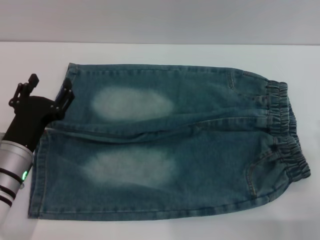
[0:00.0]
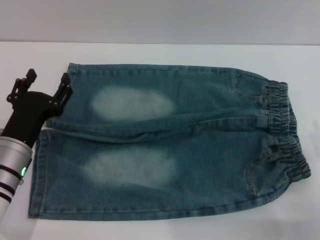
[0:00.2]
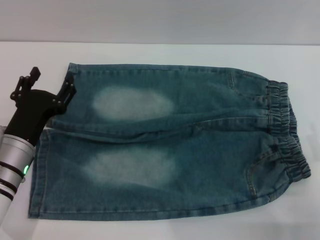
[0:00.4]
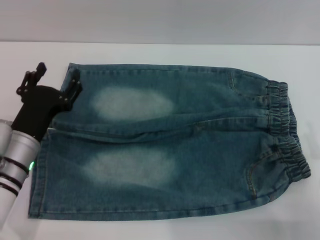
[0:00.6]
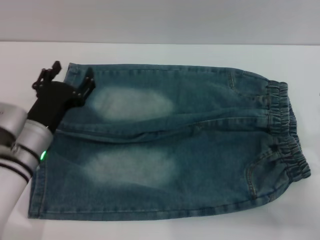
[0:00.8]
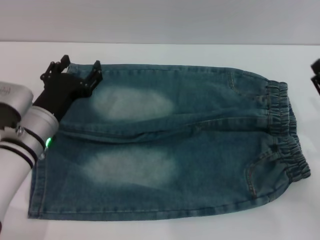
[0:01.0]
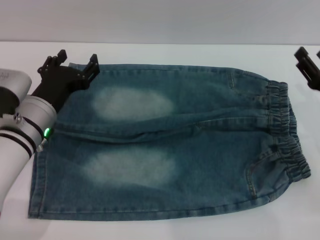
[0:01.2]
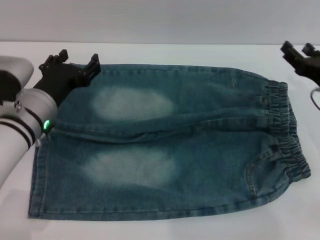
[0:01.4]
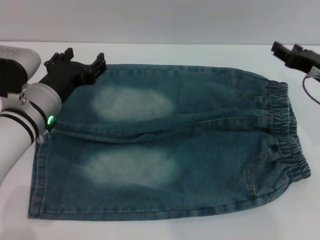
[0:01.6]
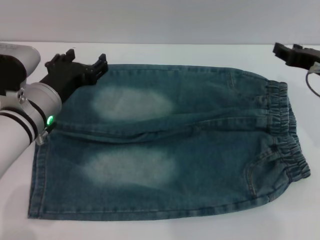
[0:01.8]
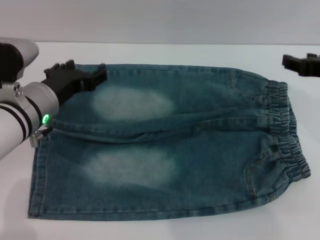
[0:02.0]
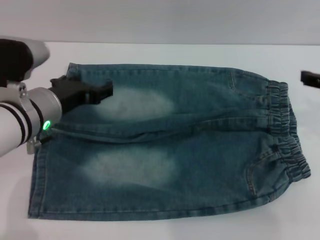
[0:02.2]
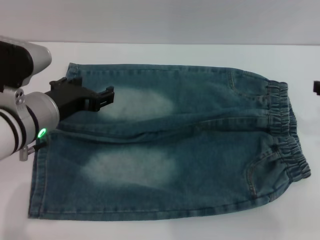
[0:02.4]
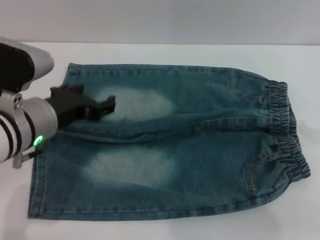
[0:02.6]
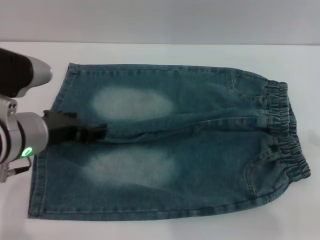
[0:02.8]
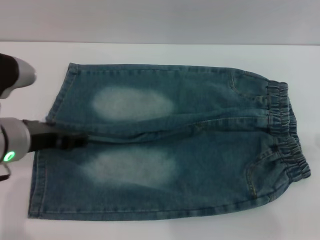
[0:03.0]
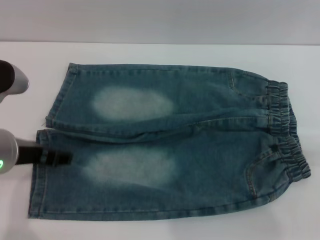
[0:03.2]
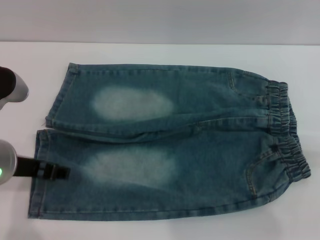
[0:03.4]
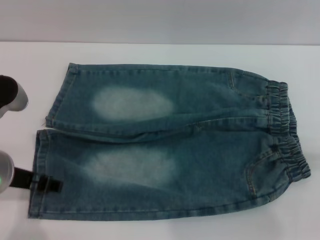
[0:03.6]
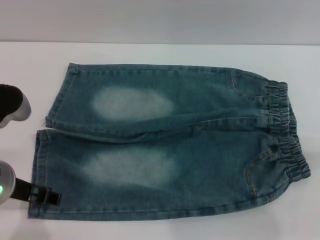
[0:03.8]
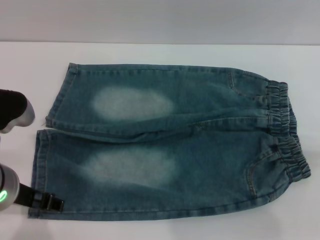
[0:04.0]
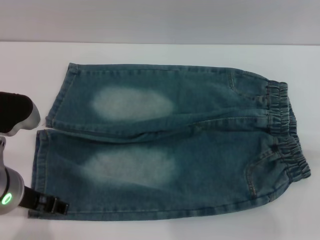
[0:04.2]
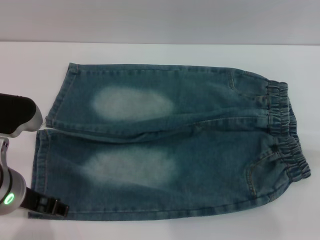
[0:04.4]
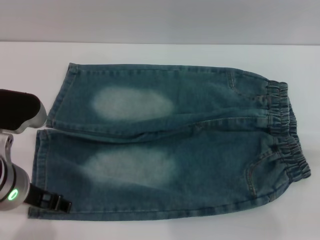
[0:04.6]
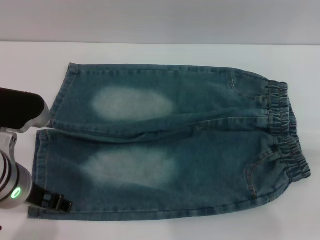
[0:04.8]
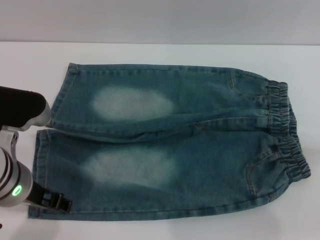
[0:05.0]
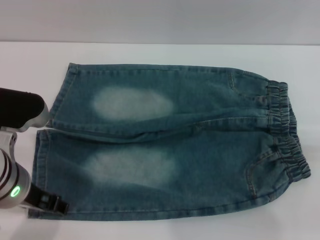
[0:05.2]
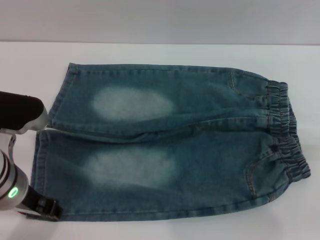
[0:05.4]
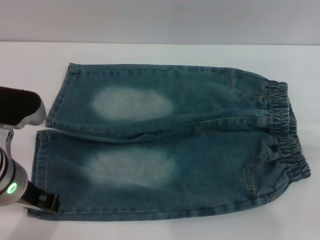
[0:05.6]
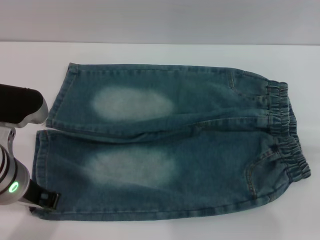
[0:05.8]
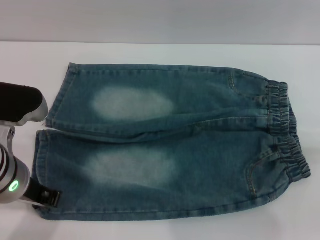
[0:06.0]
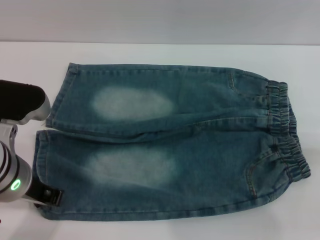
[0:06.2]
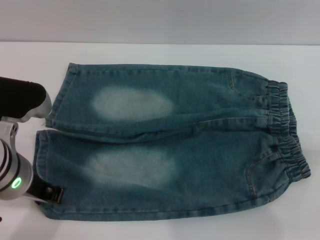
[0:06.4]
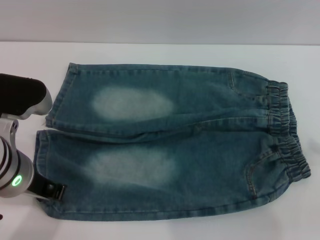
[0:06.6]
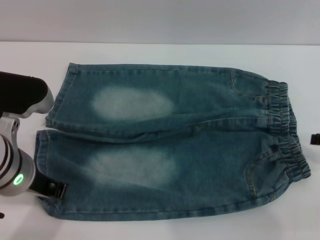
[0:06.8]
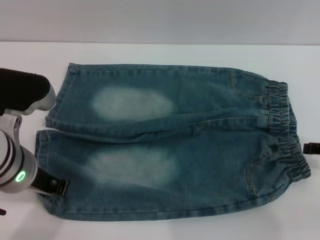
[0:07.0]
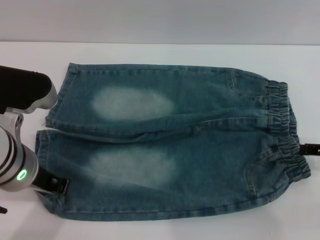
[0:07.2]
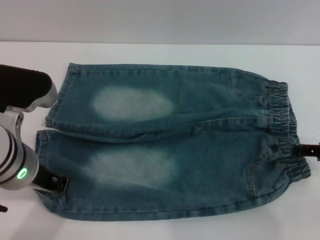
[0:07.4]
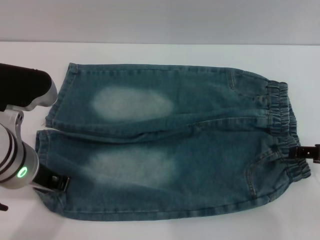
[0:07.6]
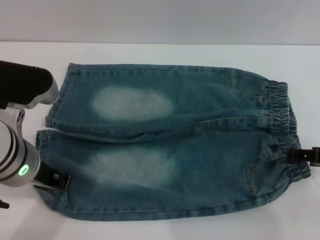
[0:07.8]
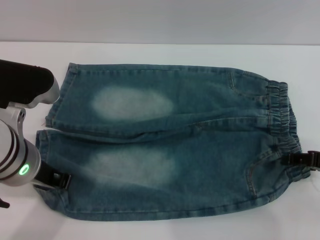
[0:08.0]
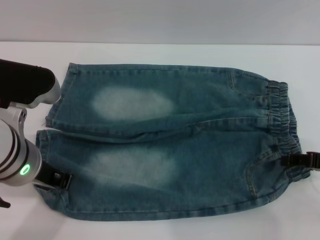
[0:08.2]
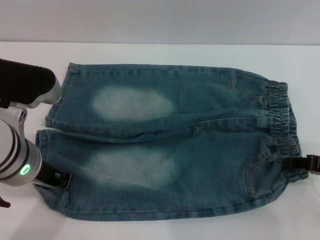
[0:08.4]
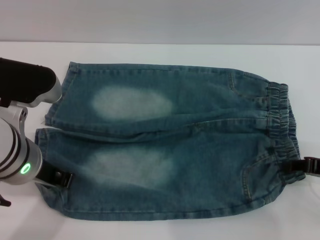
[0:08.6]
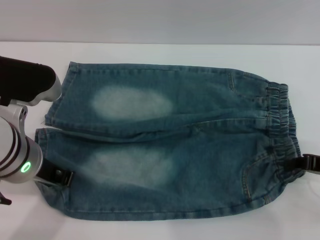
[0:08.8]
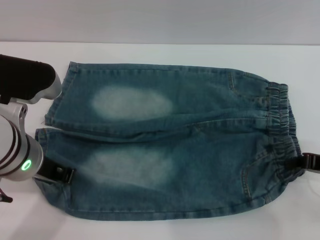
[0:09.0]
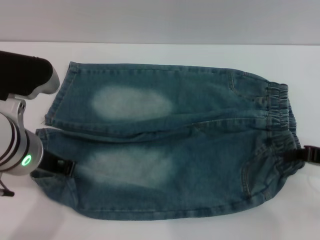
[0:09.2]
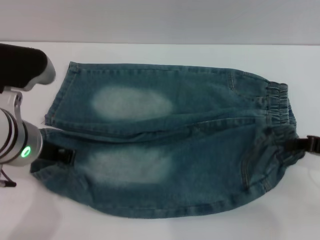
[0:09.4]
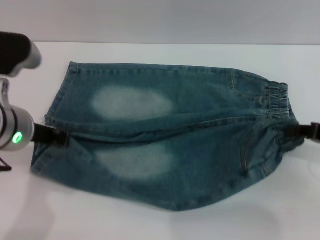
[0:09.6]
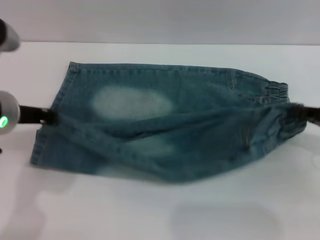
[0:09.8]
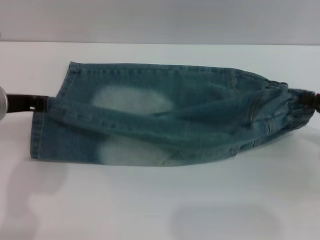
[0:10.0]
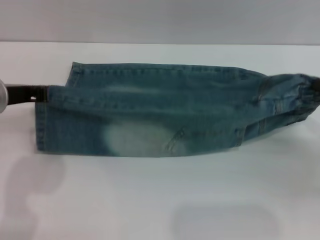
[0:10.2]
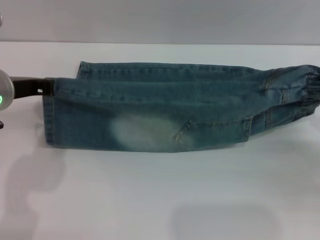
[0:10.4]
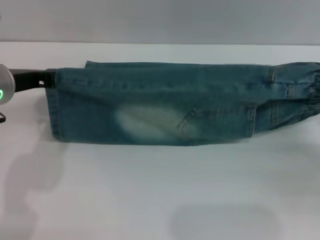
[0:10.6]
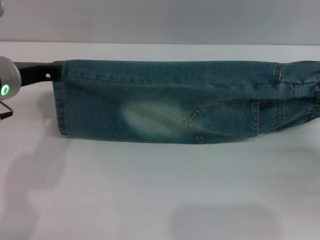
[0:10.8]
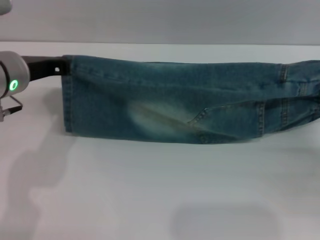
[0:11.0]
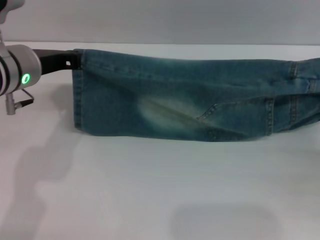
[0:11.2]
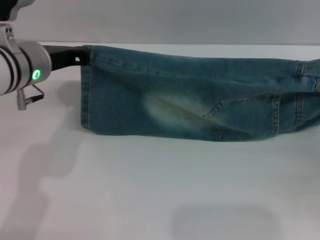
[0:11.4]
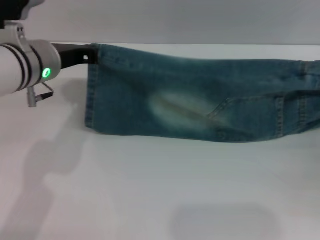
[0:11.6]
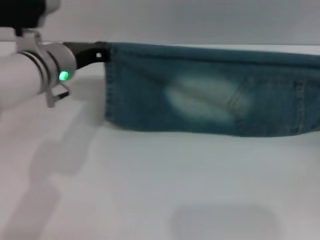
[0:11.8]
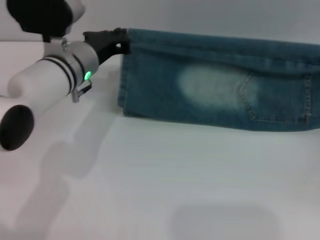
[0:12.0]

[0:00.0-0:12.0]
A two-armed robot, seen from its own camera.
0:00.0 to 0:01.6: The right gripper is displaced forward and upward by some 20 cm; the left gripper travels forward and upward by roughly 10 cm.
0:01.6 to 0:03.0: The left gripper travels upward and backward by roughly 10 cm. The right gripper goes some 15 cm backward, upward and to the right.
0:04.4 to 0:06.0: The left gripper closes.
0:07.6 to 0:09.0: The right gripper closes its fingers.
0:09.0 to 0:10.4: The left gripper heads forward and to the left, covering some 5 cm. The right gripper changes place by about 5 cm.
0:10.4 to 0:12.0: The left gripper travels to the right, forward and downward by about 10 cm. Meanwhile the right gripper is displaced to the right by approximately 5 cm.

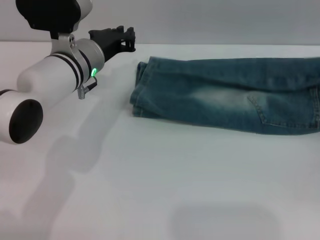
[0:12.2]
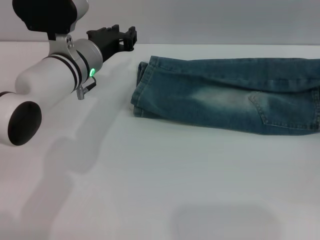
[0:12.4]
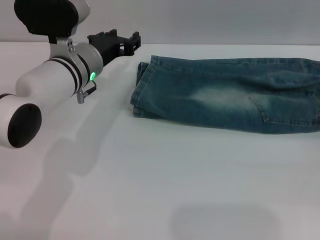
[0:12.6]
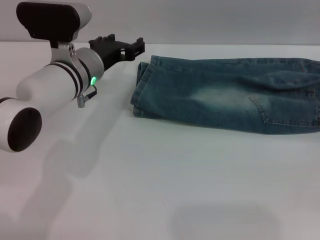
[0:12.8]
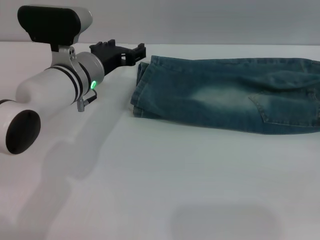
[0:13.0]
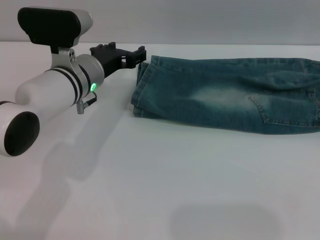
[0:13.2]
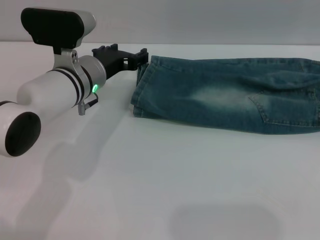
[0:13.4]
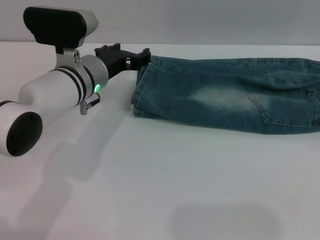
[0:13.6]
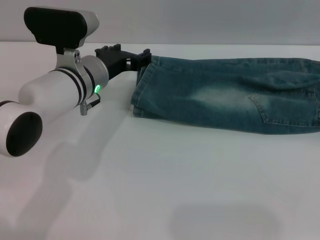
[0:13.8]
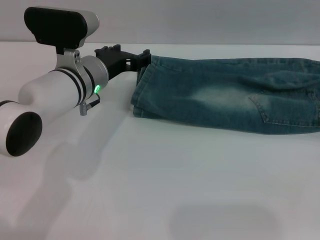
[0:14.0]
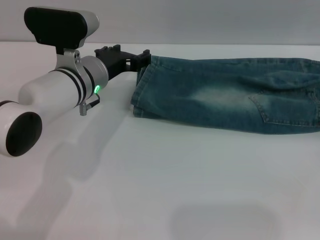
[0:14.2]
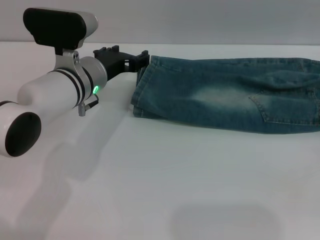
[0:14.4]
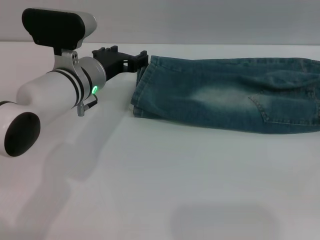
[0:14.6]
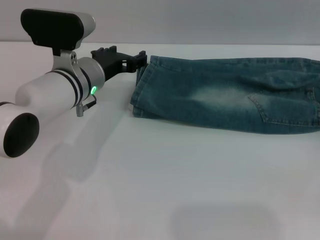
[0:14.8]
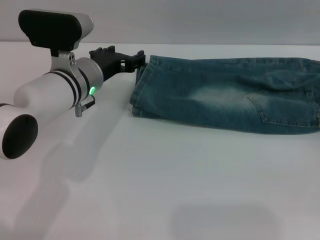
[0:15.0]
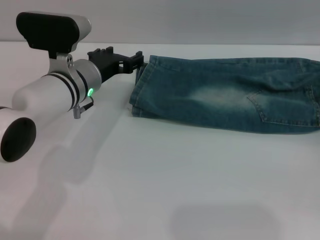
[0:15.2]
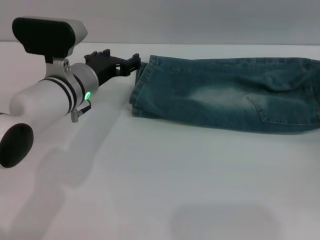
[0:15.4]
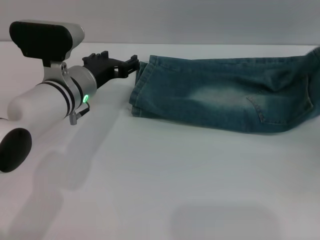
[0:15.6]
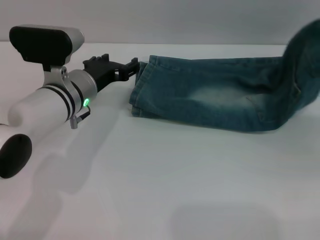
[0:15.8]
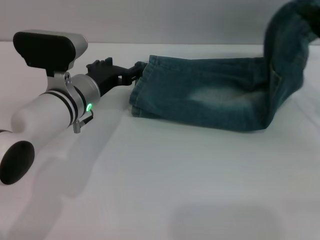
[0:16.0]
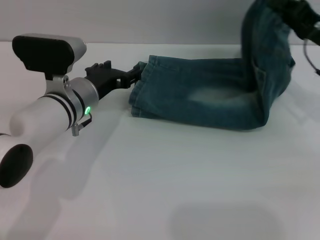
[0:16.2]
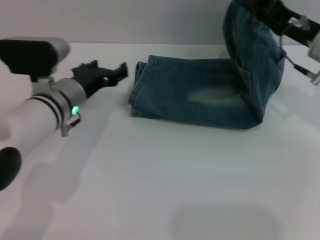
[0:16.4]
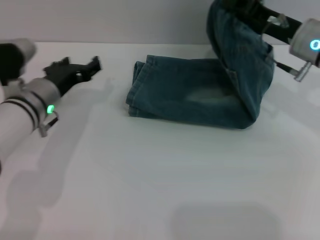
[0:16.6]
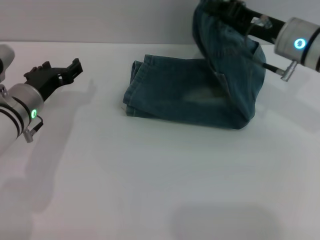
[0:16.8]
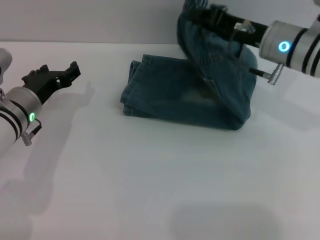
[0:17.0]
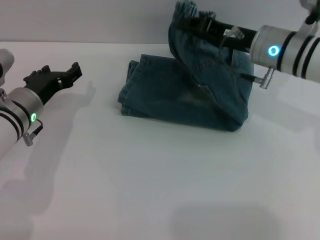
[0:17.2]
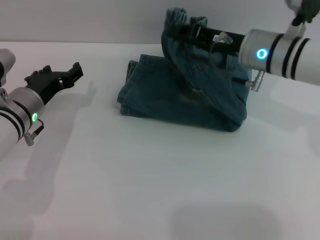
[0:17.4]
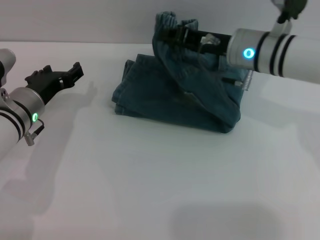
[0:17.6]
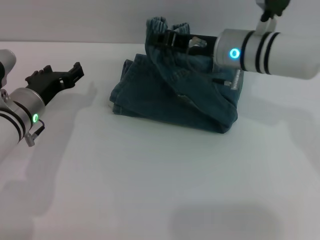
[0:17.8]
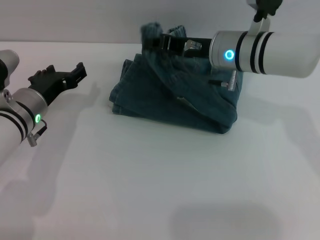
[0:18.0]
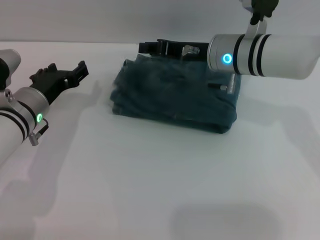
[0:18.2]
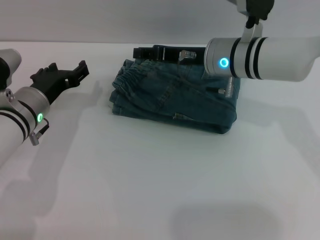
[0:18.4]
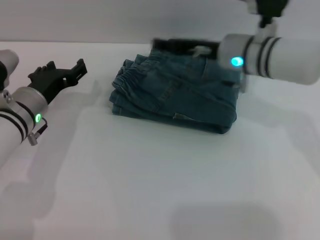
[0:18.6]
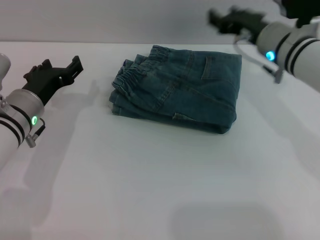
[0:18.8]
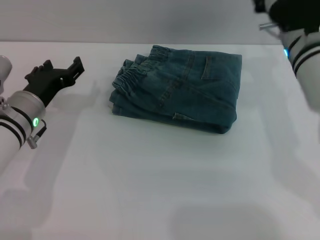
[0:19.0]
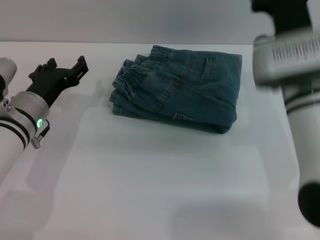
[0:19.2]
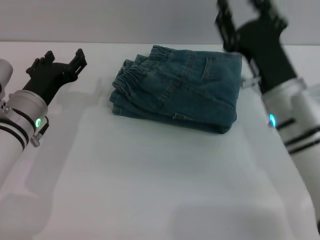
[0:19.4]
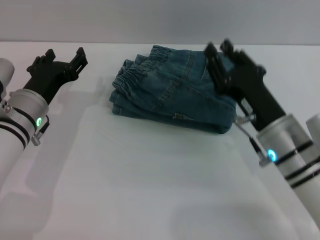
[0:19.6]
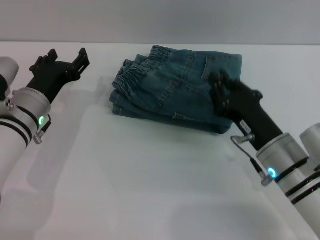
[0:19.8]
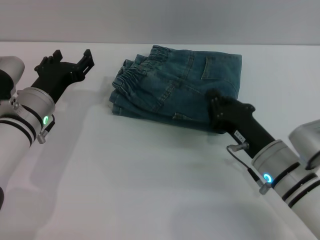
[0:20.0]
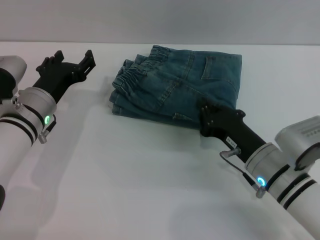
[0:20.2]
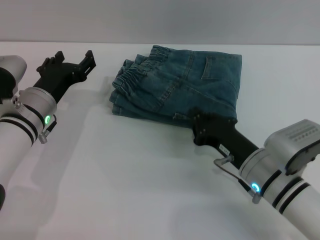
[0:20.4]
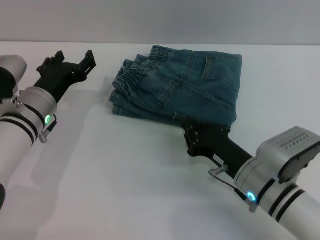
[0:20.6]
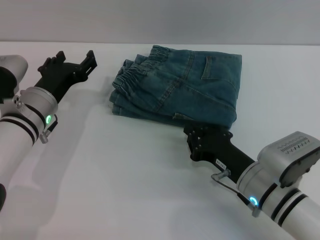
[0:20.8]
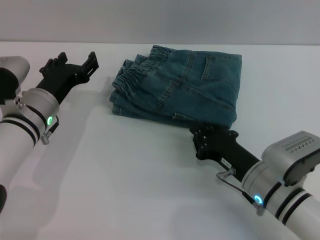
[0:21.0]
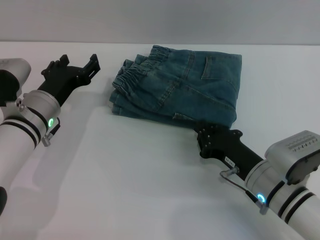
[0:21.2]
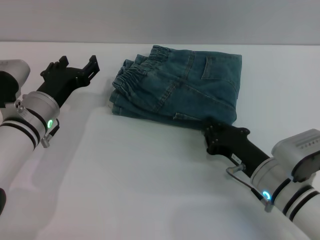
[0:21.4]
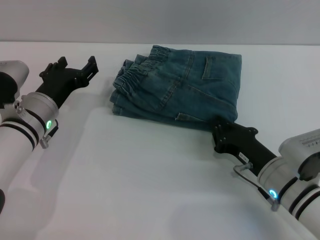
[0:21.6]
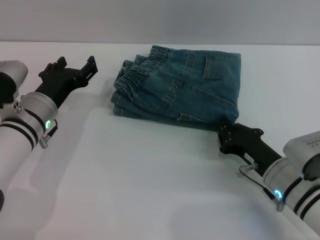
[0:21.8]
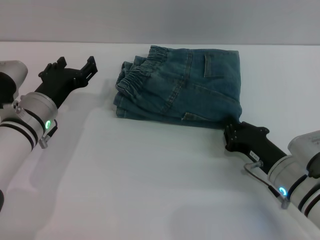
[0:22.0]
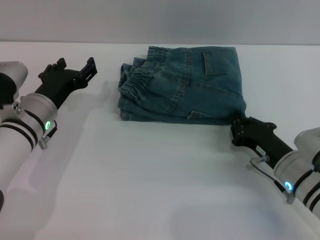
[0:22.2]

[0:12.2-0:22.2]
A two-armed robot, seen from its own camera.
Step, 0:13.8 to 0:18.6: Fold the pants from right to left with the right gripper.
0:12.2 to 0:13.6: The right gripper is displaced backward by about 5 cm, and opens; the left gripper opens its fingers.
0:13.6 to 0:15.0: The right gripper changes place by about 5 cm.
0:15.0 to 0:16.4: The right gripper goes roughly 20 cm to the left, forward and upward, and closes.
0:16.4 to 0:18.0: The right gripper heads to the left, covering roughly 15 cm. The left gripper travels to the left by roughly 5 cm.
0:18.0 to 0:19.4: The right gripper travels backward by some 10 cm, and opens.
0:19.4 to 0:20.8: The right gripper is displaced downward and backward by some 10 cm, and closes up.
0:20.8 to 0:22.2: The right gripper heads to the right, covering approximately 5 cm.
